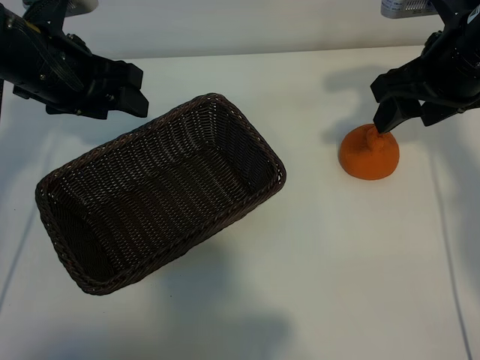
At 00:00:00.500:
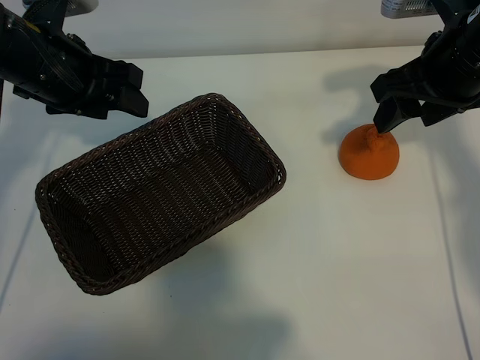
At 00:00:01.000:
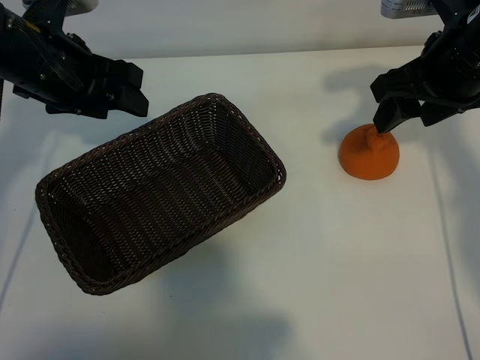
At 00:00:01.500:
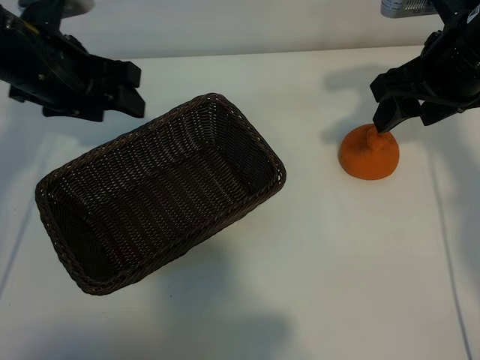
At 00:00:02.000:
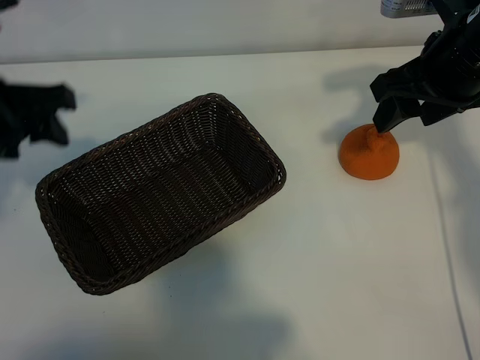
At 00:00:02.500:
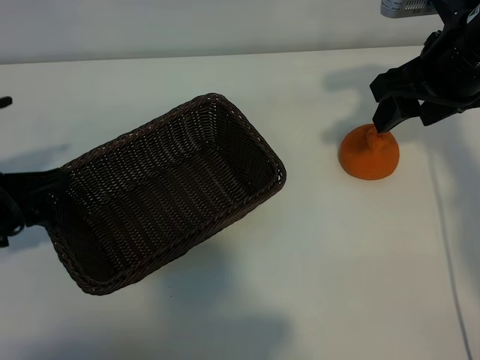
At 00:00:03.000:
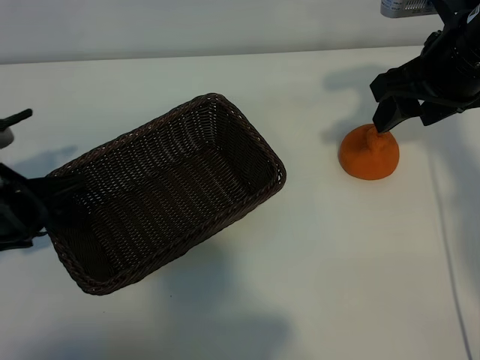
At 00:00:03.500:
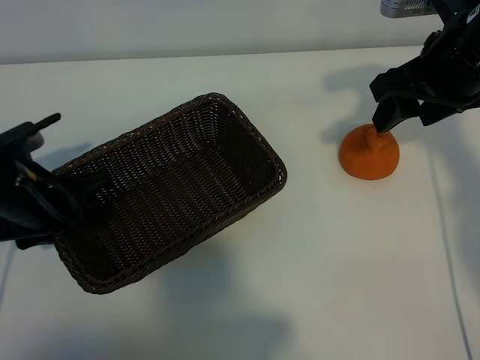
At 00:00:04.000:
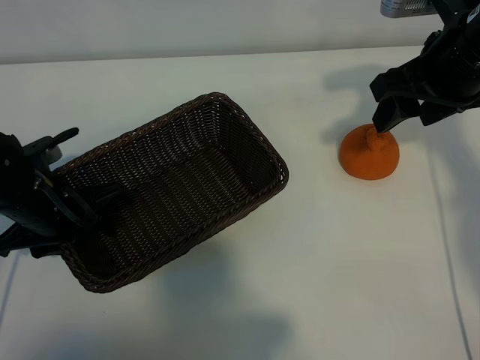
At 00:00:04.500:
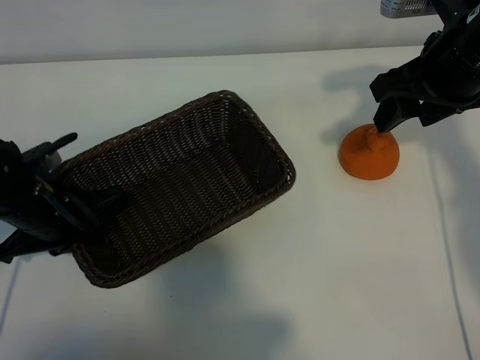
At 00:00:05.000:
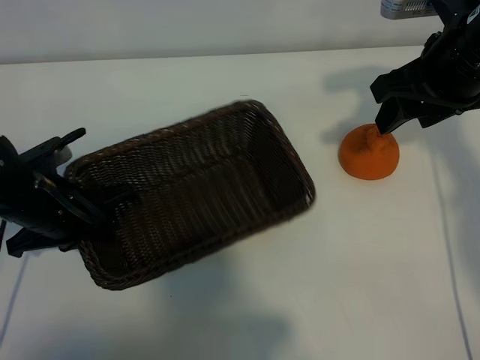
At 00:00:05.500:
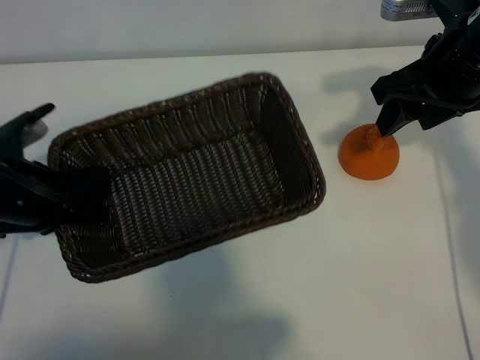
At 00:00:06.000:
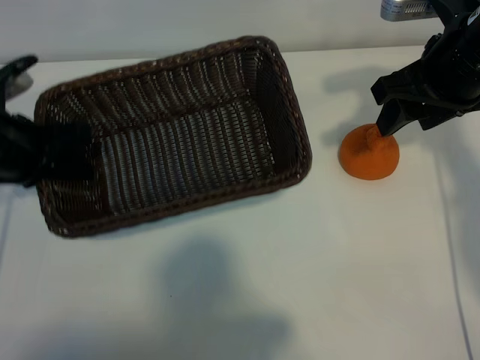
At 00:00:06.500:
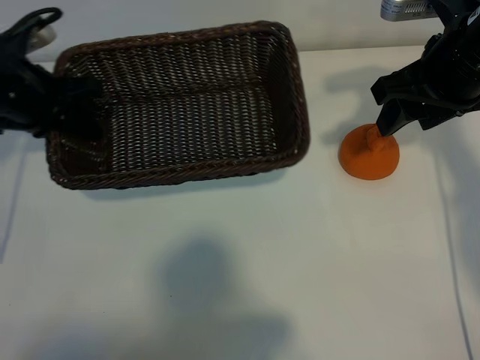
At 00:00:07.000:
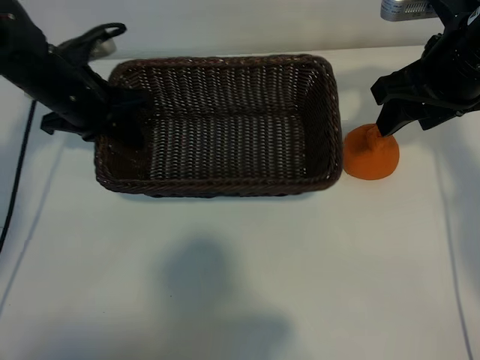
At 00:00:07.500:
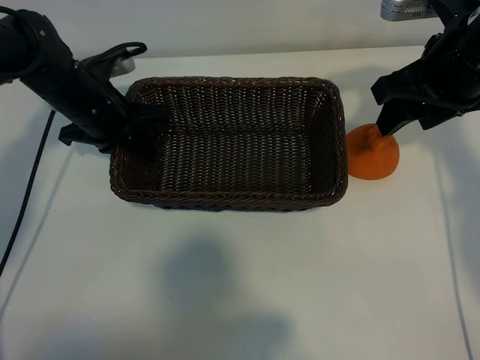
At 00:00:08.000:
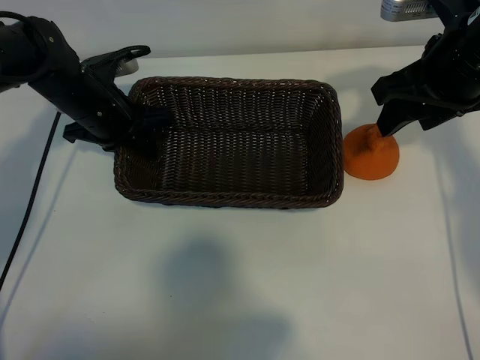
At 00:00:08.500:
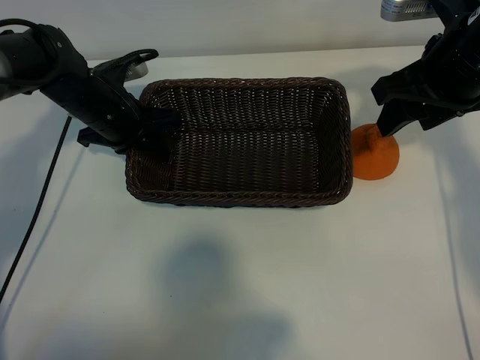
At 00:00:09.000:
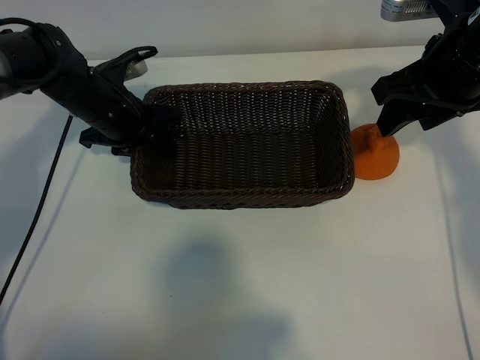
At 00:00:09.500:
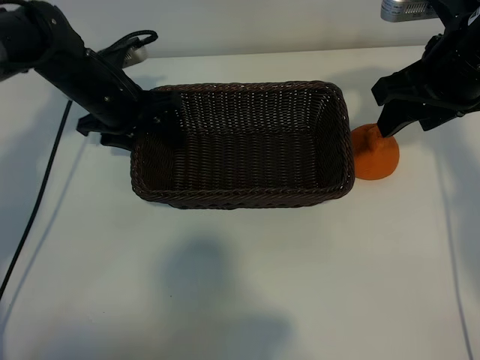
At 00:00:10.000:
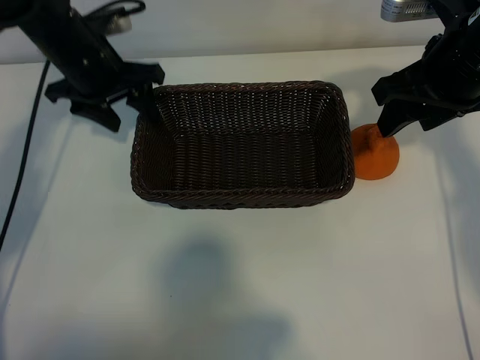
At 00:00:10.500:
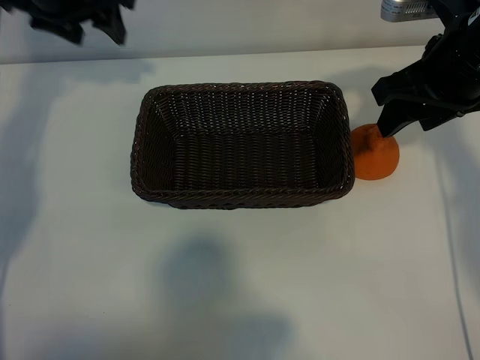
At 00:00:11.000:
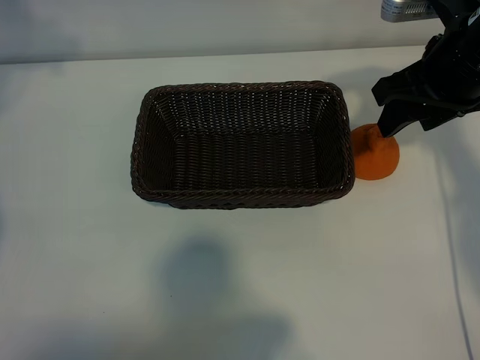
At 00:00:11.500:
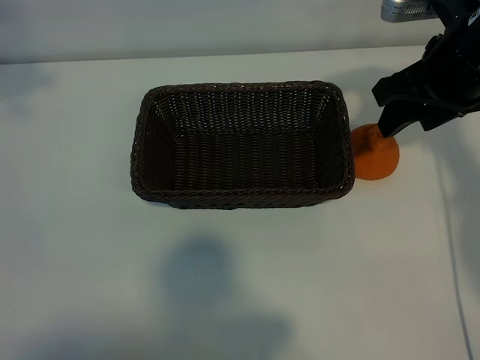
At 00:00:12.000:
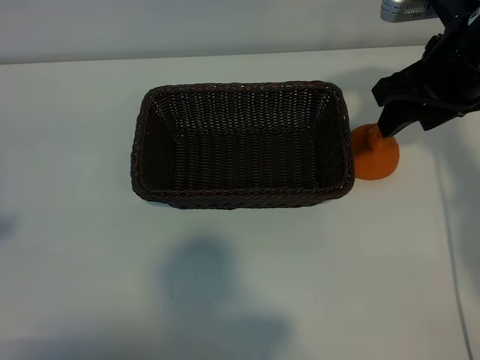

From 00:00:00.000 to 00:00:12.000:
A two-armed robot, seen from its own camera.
Task of the whole recording: pick up the orange and put it into the basket.
Step, from 00:00:01.500 to 00:00:05.000: Grasp the basket with left gripper.
Step, from 00:00:05.500 to 00:00:09.000: Place the basket in the center of view with left gripper.

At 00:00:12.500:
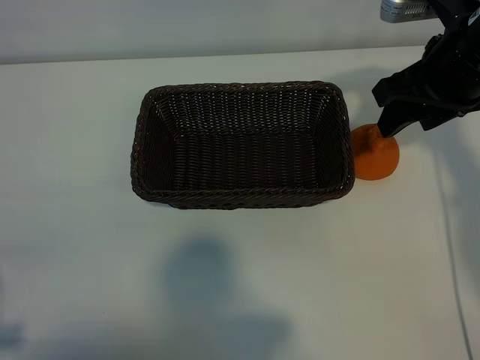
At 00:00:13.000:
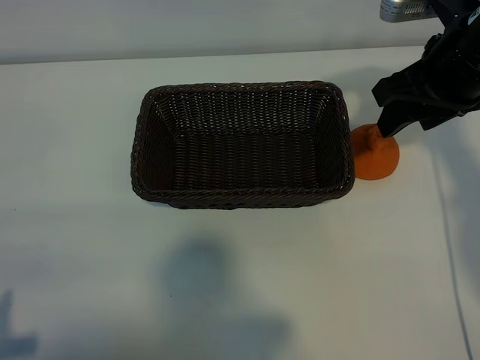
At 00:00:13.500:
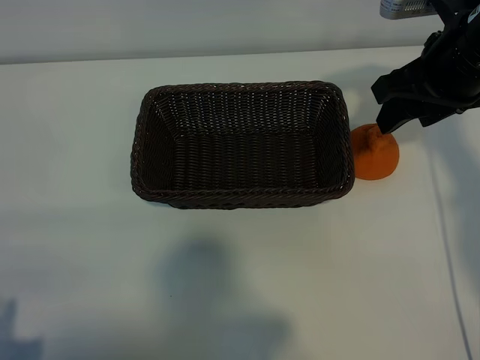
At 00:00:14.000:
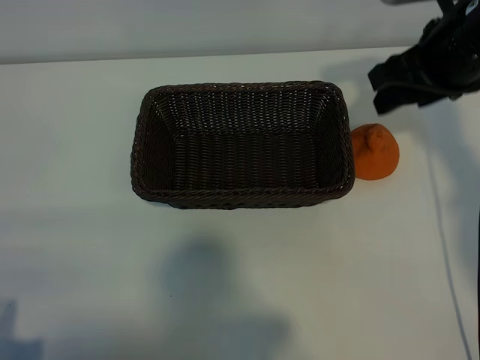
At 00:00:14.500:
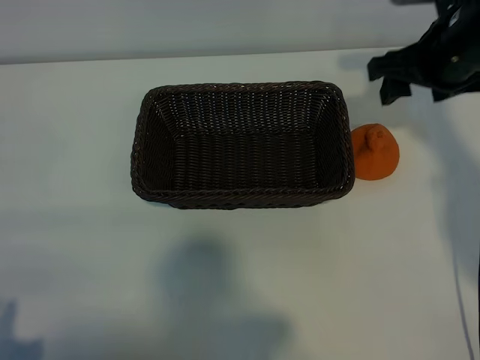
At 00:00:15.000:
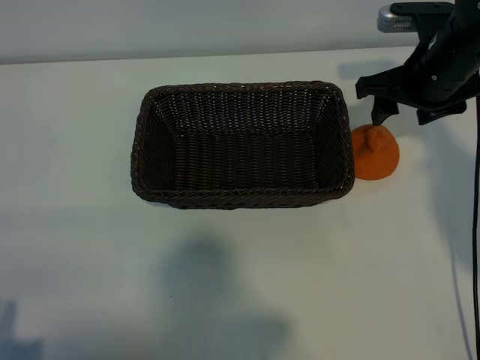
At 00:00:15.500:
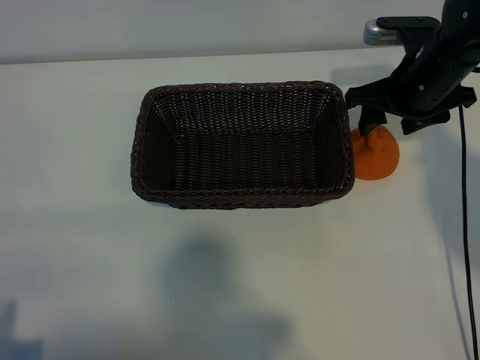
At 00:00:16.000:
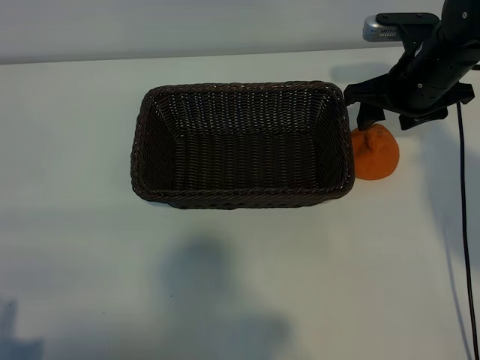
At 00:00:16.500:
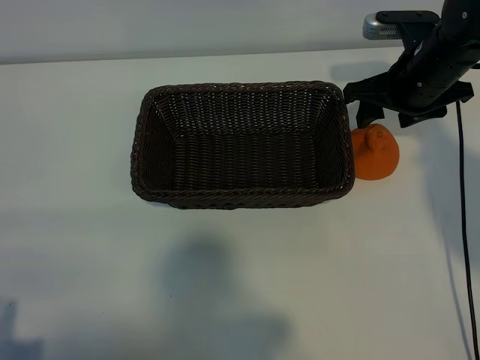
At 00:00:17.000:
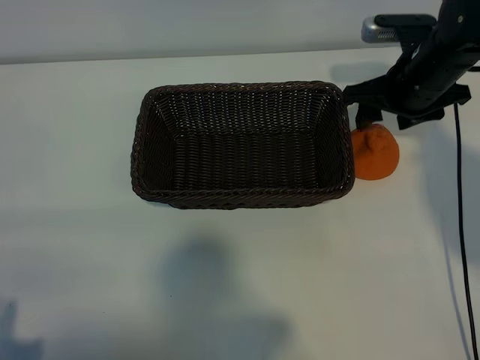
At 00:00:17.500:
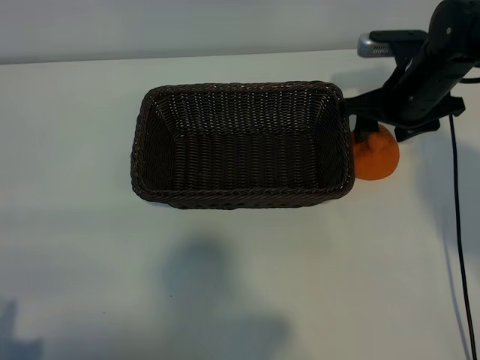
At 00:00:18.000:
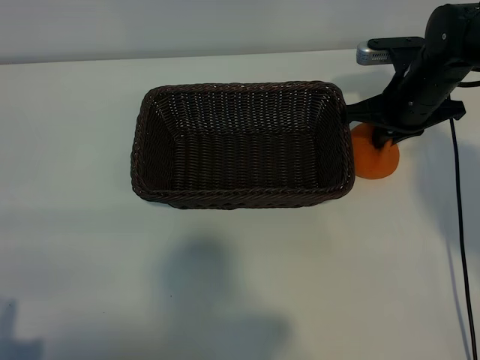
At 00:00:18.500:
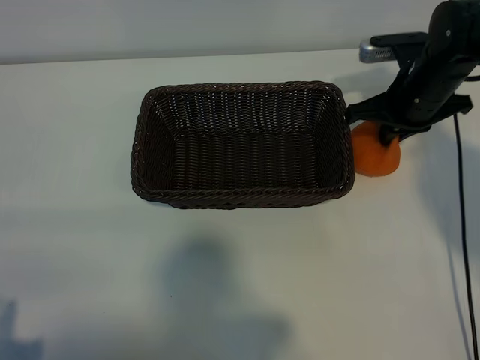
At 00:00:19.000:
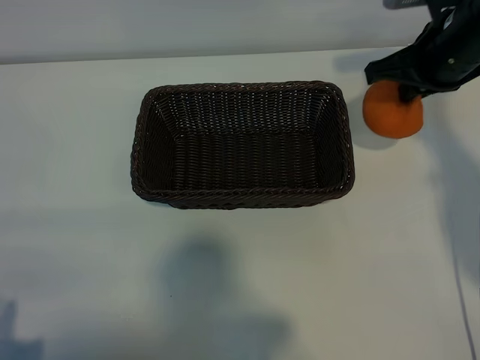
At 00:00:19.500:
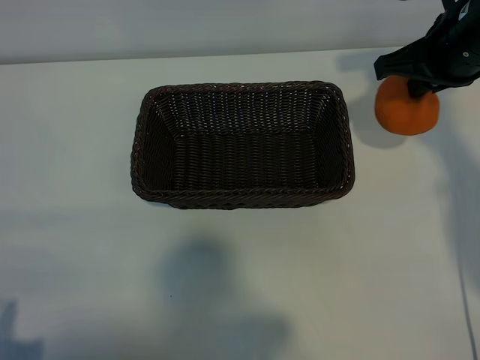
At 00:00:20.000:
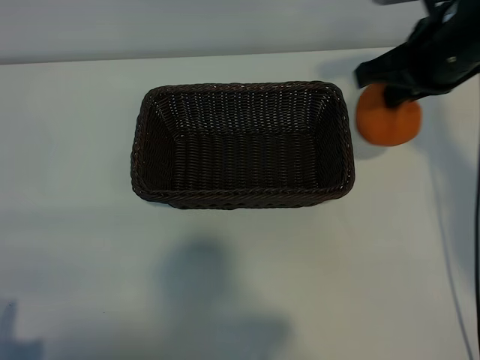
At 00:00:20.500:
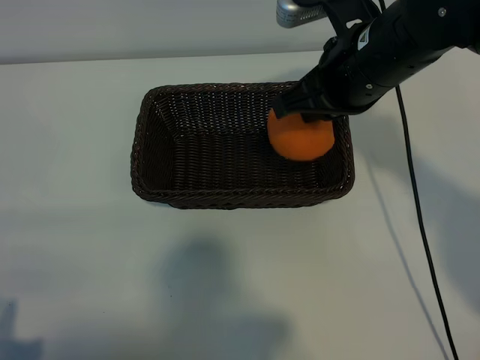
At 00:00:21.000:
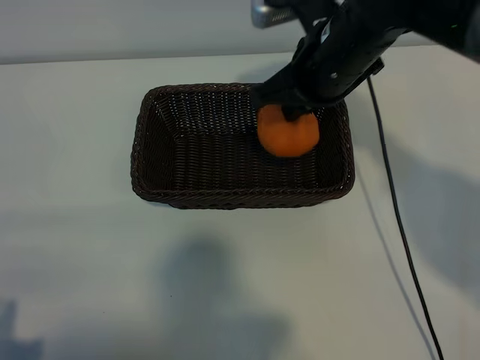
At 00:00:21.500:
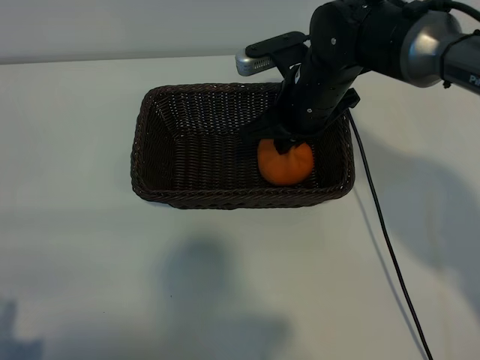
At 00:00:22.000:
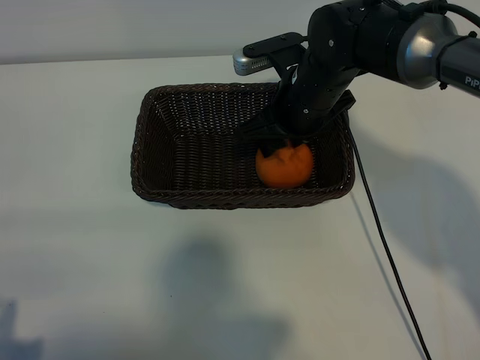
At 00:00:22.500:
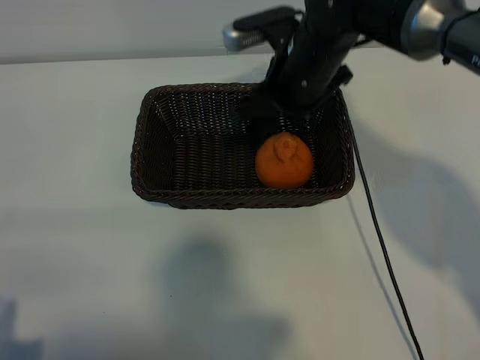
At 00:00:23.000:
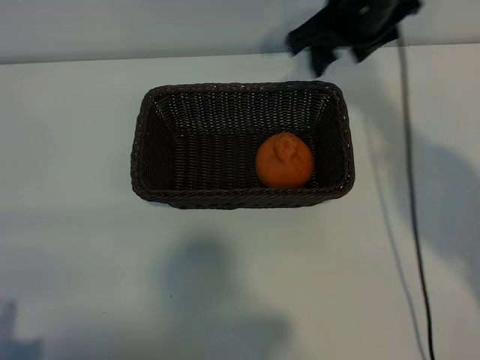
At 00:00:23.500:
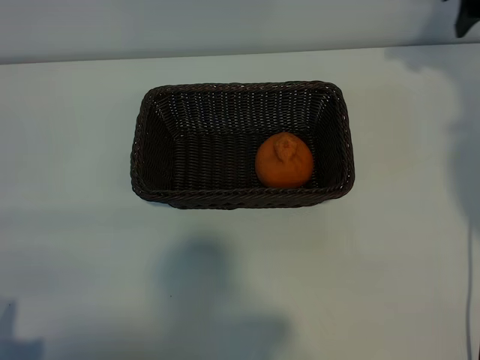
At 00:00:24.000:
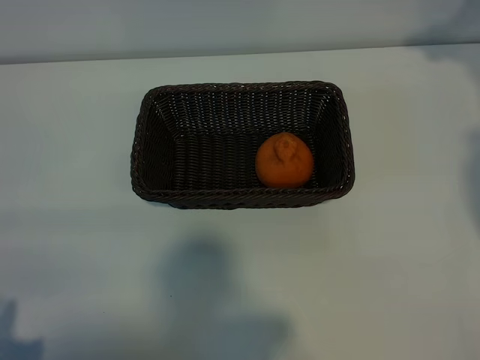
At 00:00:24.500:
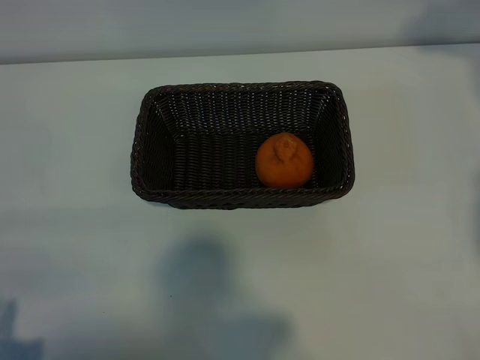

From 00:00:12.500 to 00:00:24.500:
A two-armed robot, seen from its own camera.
Task of the whole recording: pick up the orange and put it into the basket.
Step, from 00:00:12.500 to 00:00:18.000: Grasp the orange with right gripper.
Step, from 00:00:18.500 to 00:00:22.000: Place the orange in the basket with right gripper.

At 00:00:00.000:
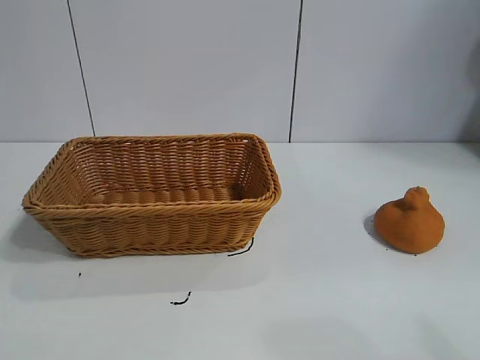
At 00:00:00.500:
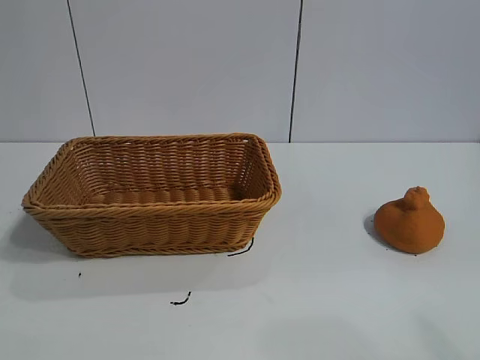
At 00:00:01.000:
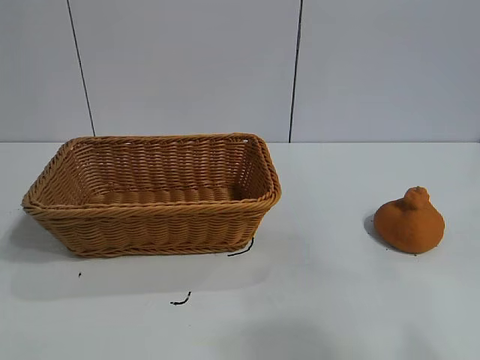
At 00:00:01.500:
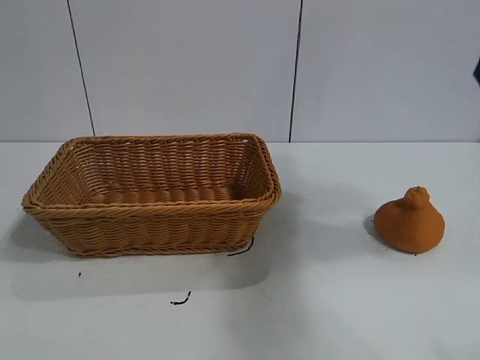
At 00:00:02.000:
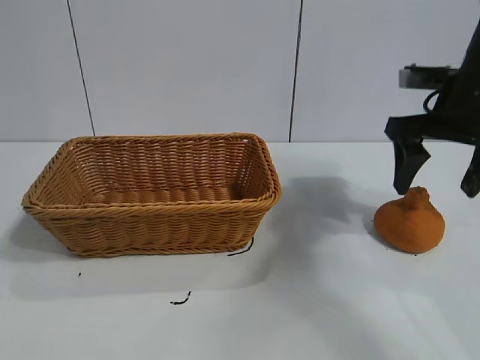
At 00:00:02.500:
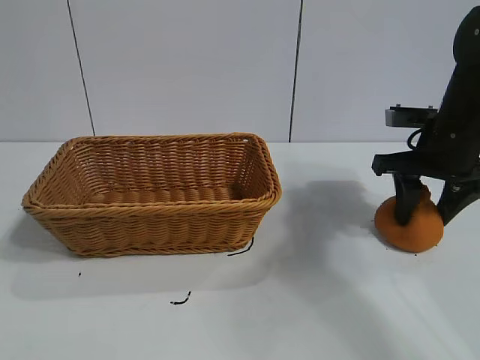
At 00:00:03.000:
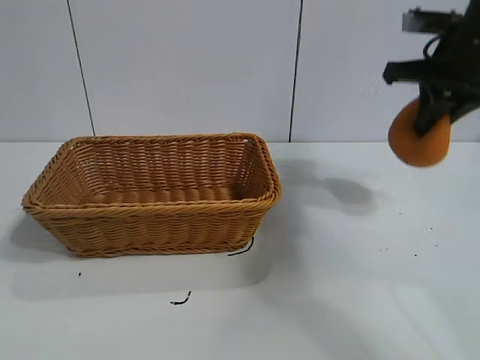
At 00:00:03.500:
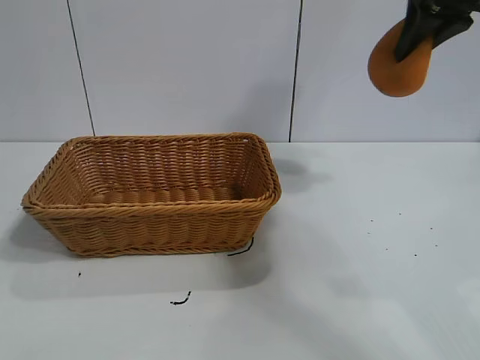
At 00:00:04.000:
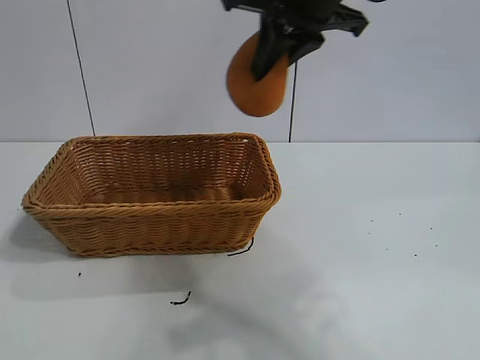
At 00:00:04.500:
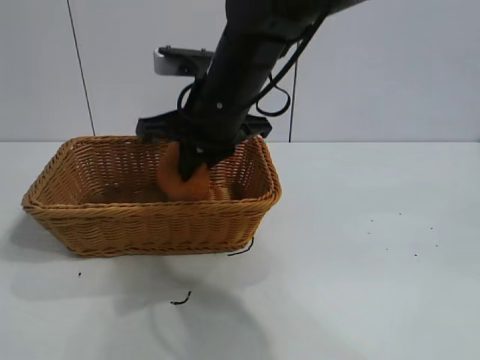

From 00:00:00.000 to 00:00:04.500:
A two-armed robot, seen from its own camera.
Task of the whole recording: pick up the orange and put it into the basket.
Step, from 00:00:01.000 to 00:00:02.500: Grasp the orange with right gripper.
